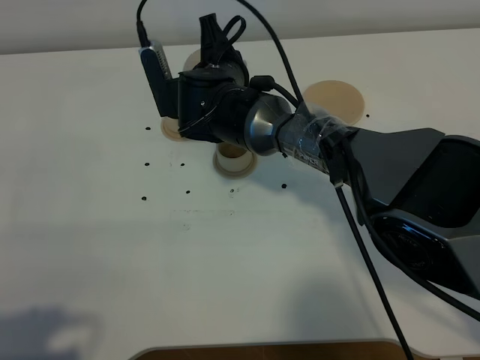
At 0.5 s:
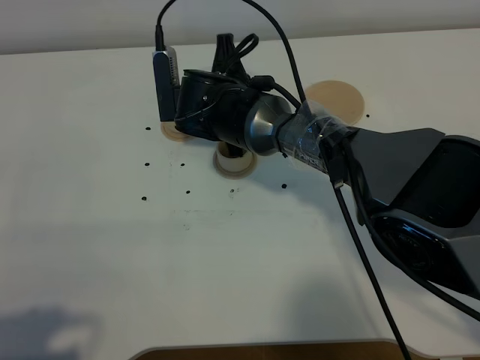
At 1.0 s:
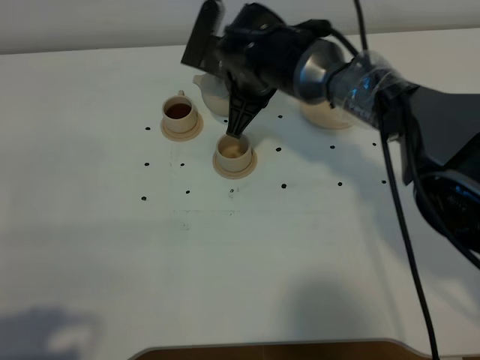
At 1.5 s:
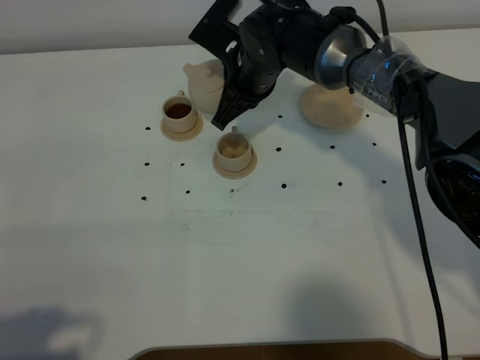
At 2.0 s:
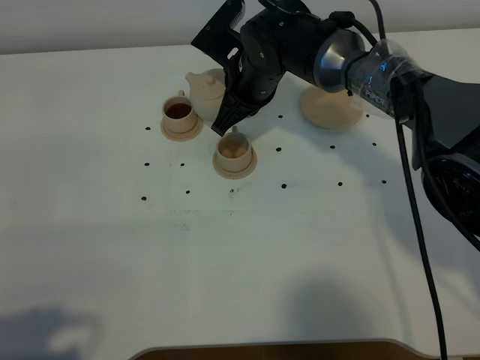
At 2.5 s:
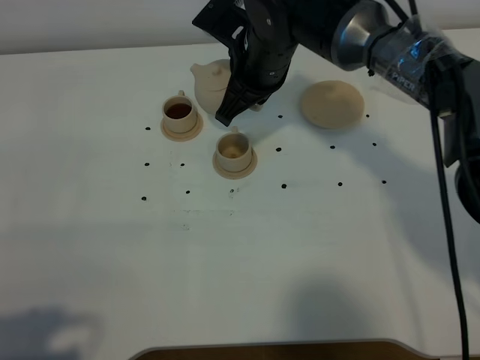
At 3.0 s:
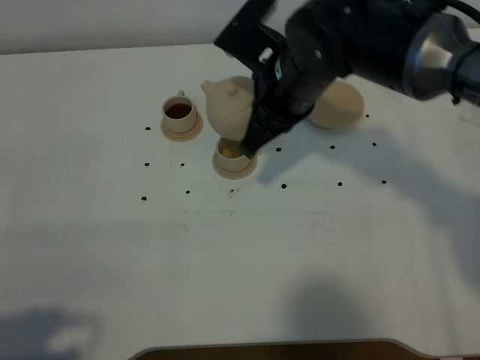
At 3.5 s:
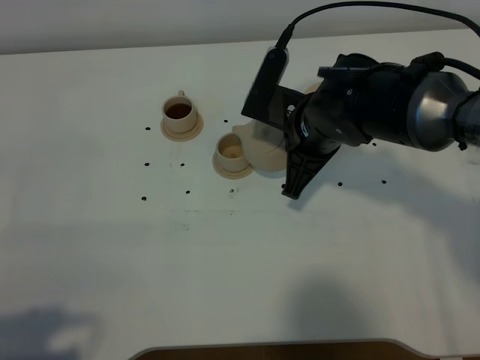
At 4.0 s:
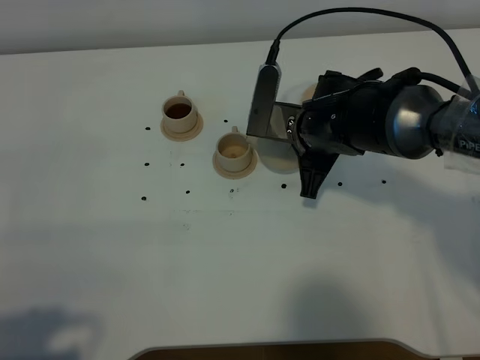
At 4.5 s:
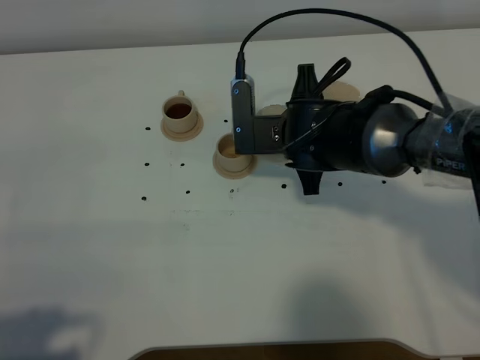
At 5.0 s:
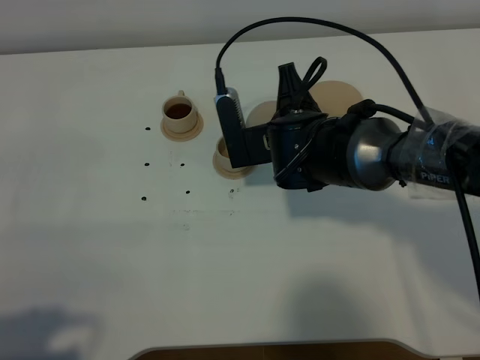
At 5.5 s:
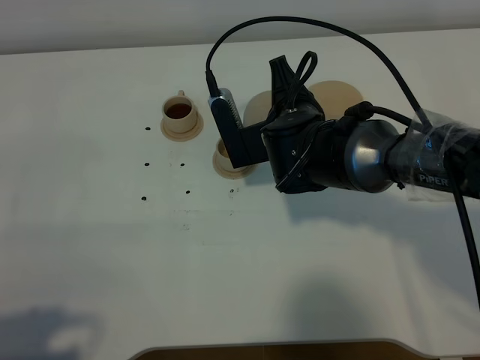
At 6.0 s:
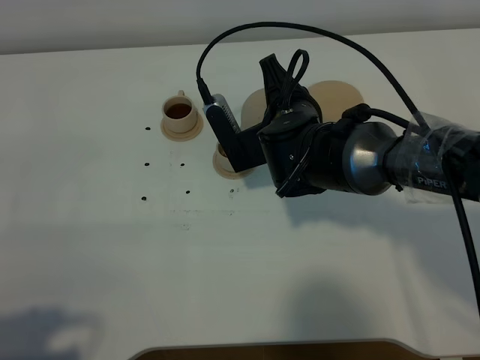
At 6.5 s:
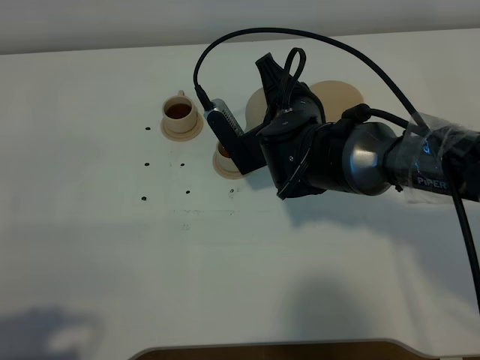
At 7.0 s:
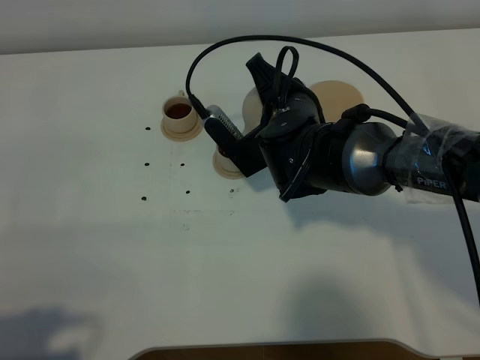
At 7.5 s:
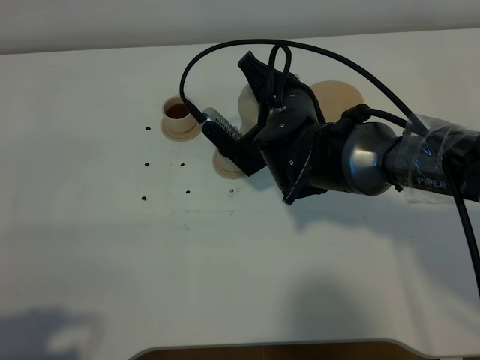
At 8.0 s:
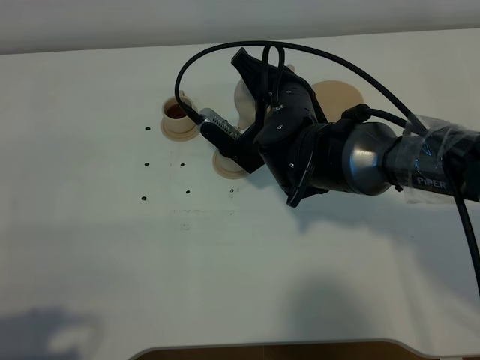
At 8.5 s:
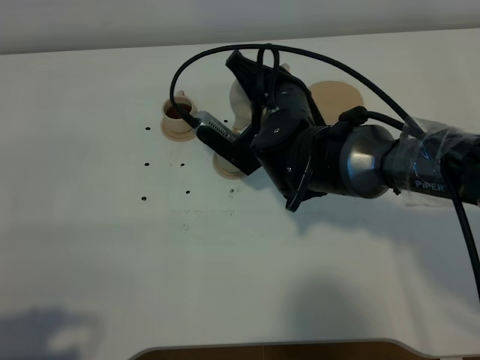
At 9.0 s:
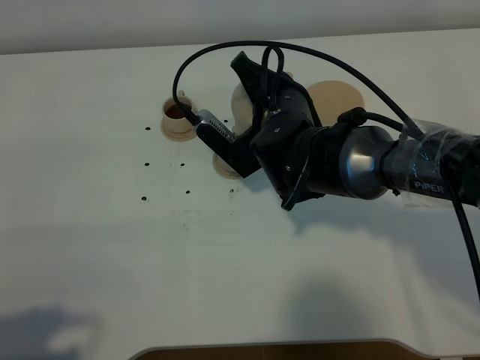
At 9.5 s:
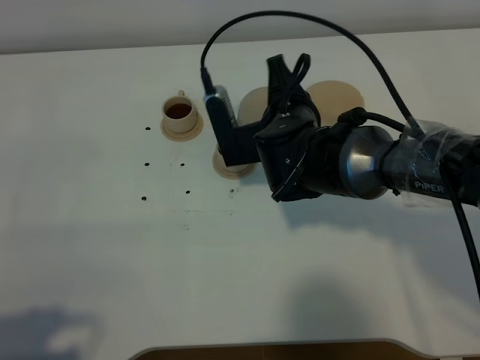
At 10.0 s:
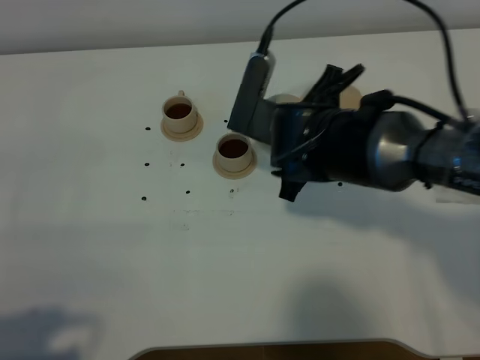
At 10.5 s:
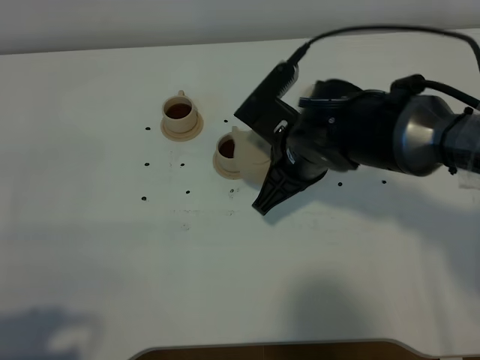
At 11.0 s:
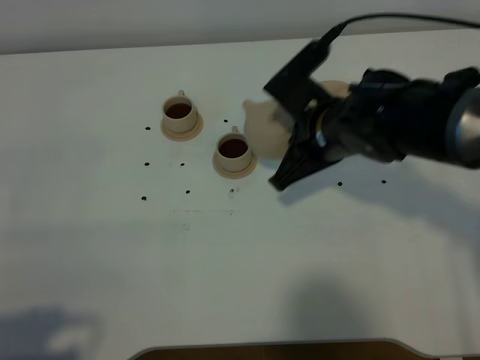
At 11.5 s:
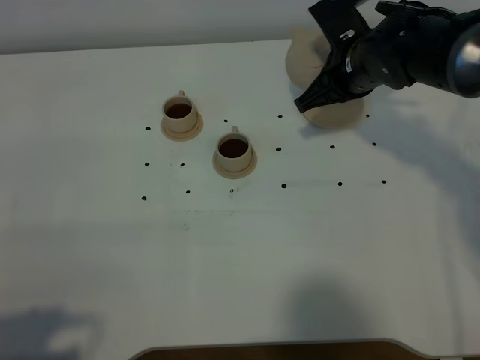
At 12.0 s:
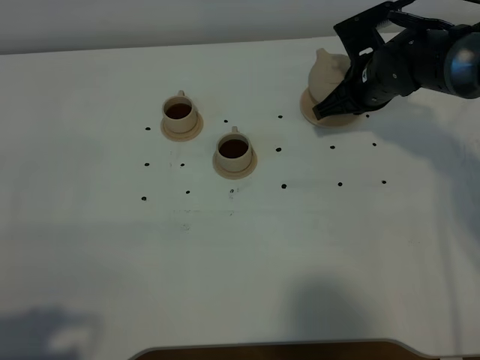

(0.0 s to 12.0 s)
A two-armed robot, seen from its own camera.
Task of the whole recording: grasp the brown teapot and pour the tea into the two brown teacups one by one, put the brown teapot back in its original place.
Step, 1.5 s - 9.5 s: Pour tea into the teacup with the right gripper.
0.0 s - 2.0 s: The right gripper shifts about 5 cm to the right.
2.0 s - 4.0 s: The right gripper travels backward and to the right by about 10 cm.
10.0 s - 12.0 s: The right gripper heads to the right and forward, covering approximately 15 cm.

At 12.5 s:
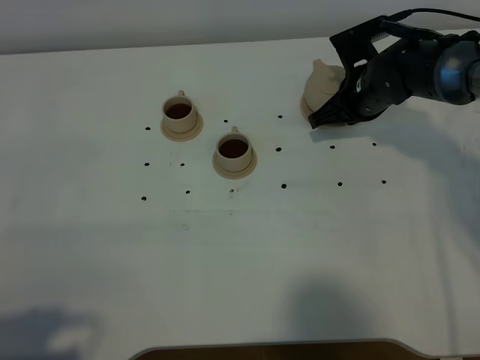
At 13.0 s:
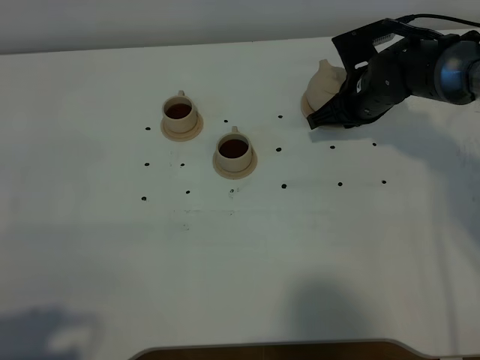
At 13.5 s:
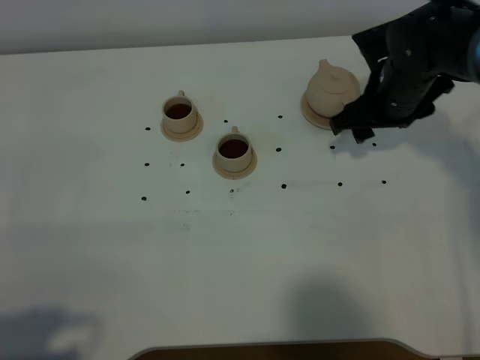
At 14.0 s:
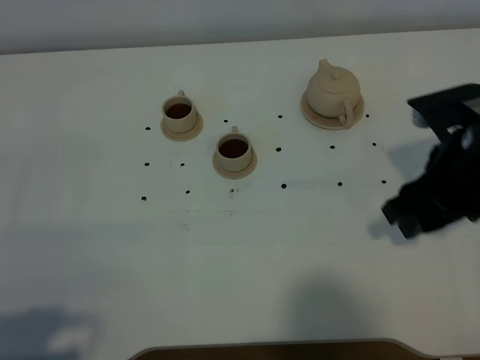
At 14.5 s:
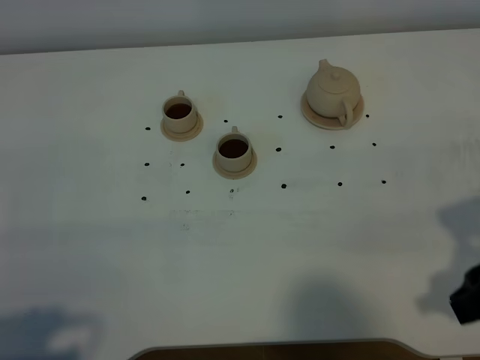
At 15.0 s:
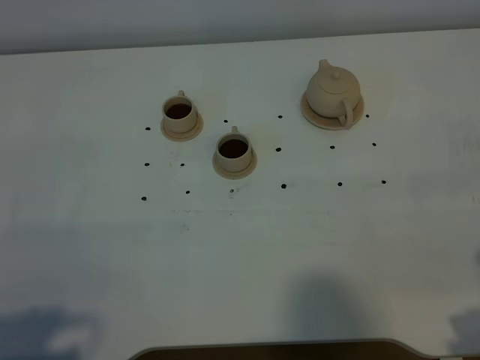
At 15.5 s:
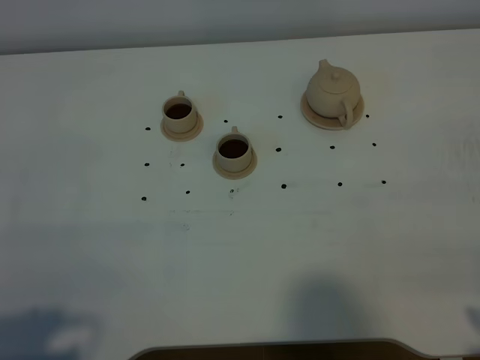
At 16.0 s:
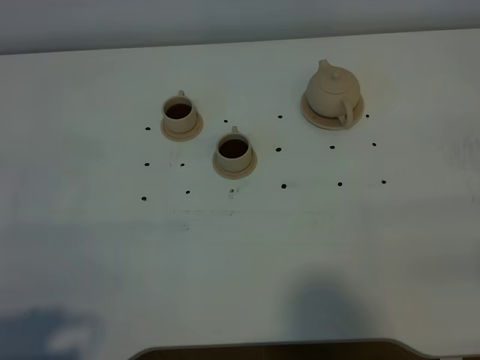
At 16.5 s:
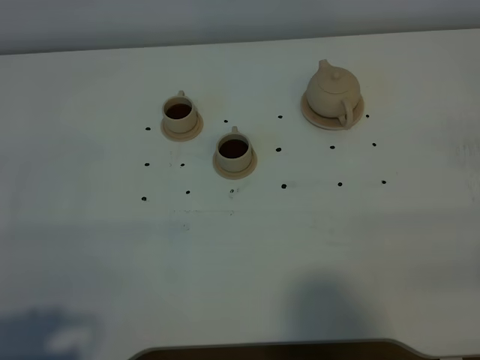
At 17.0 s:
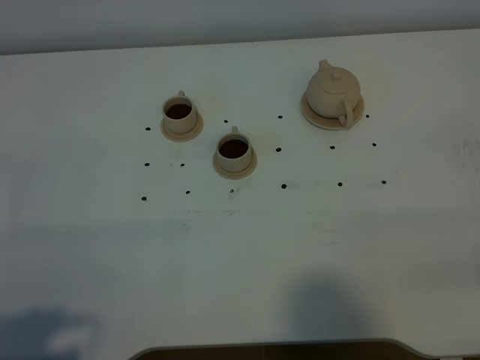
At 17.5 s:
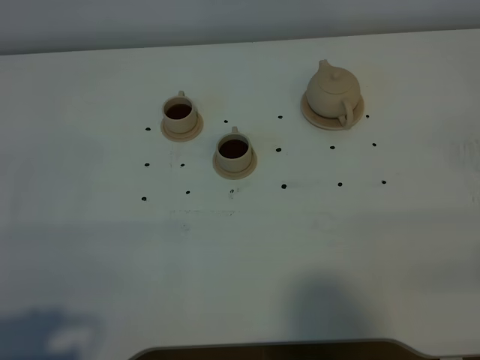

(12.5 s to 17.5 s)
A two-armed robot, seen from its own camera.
Task of the whole recording: grasp the brown teapot and pour the tea into the two brown teacups one by one, put the brown teapot back in its original place.
12.5 s - 15.0 s: The right gripper travels backward by about 35 cm, and opens.

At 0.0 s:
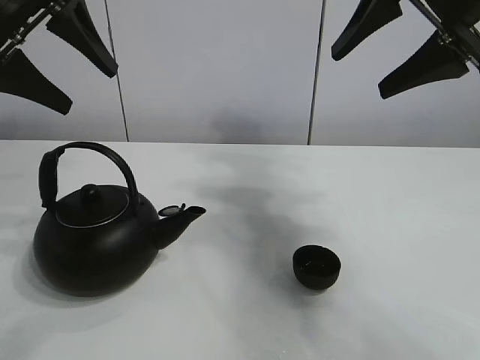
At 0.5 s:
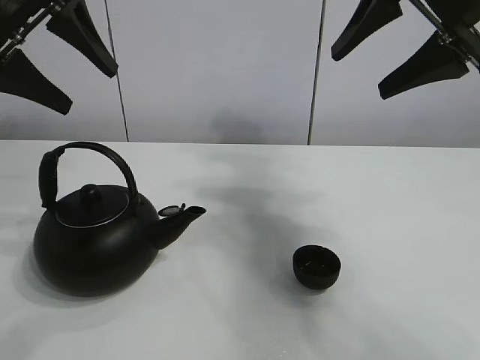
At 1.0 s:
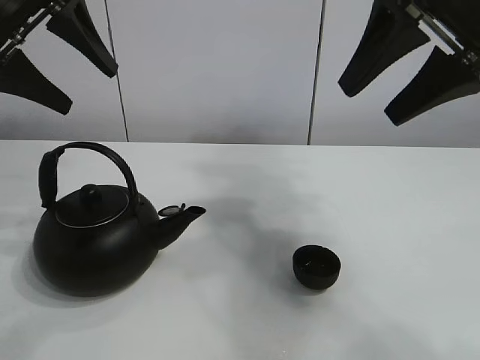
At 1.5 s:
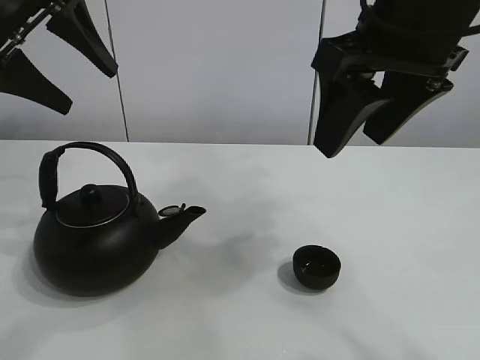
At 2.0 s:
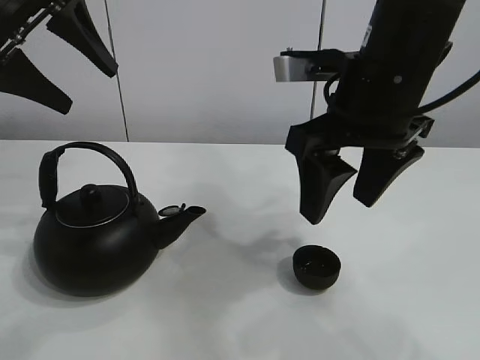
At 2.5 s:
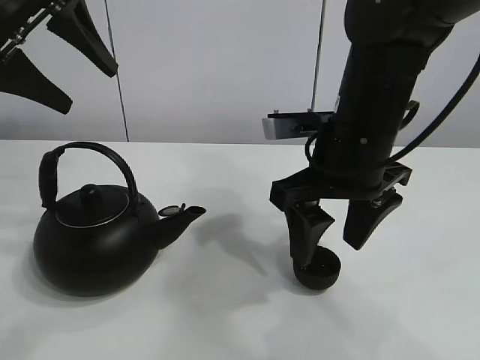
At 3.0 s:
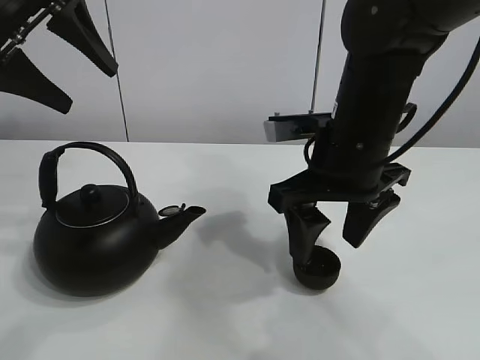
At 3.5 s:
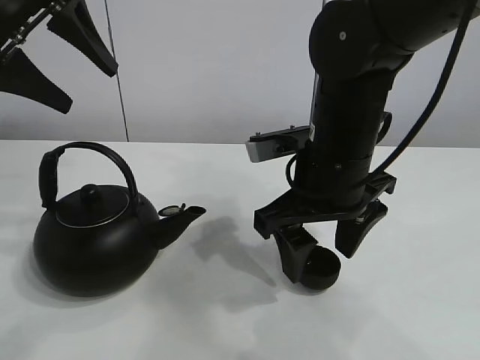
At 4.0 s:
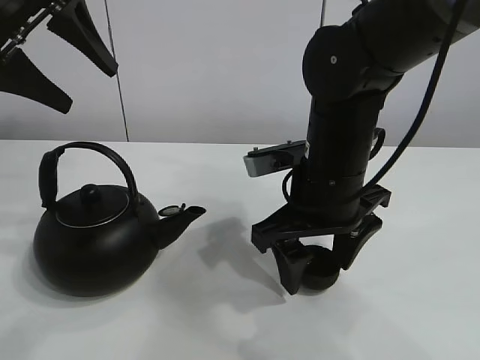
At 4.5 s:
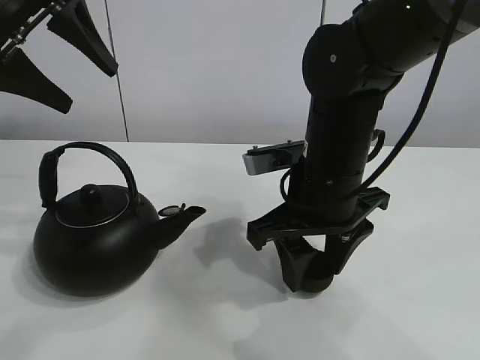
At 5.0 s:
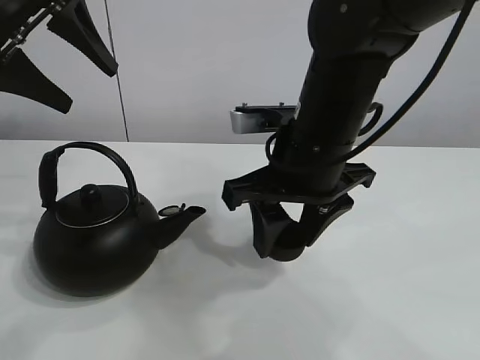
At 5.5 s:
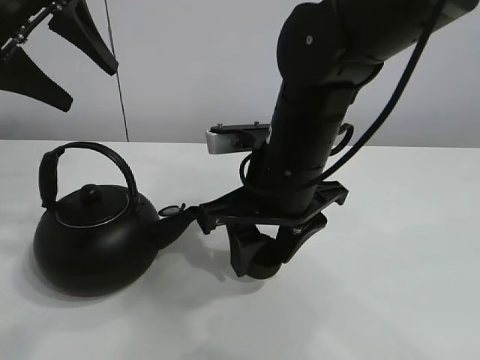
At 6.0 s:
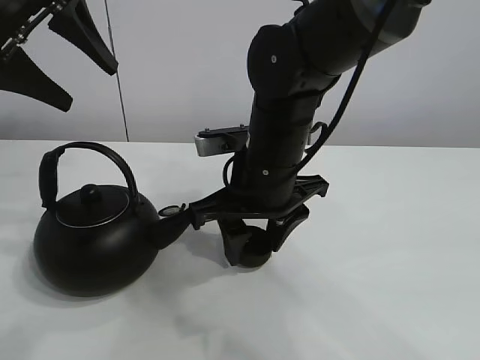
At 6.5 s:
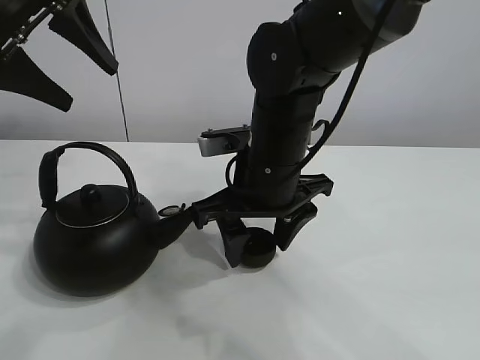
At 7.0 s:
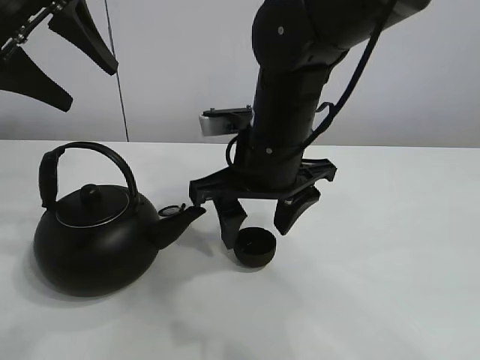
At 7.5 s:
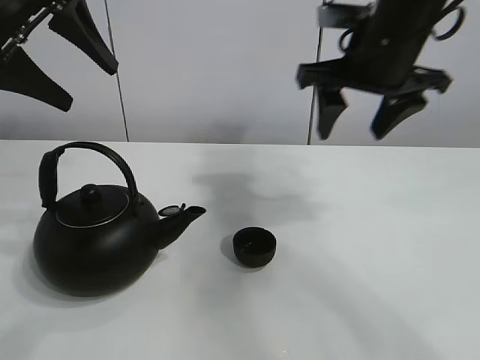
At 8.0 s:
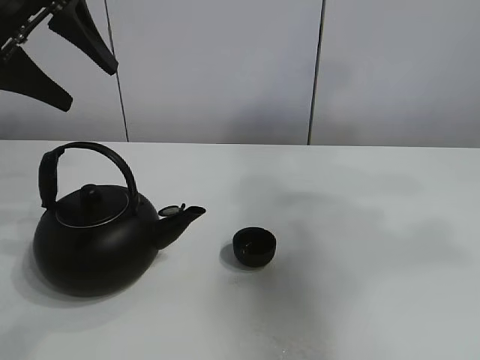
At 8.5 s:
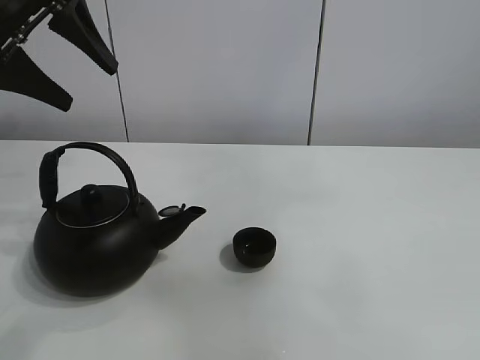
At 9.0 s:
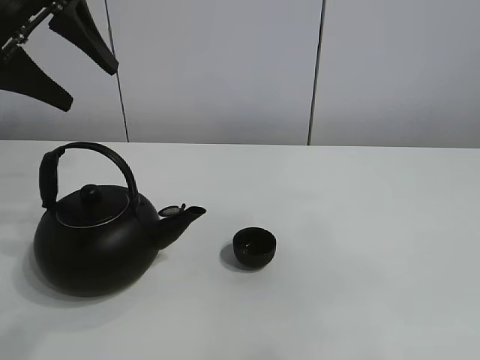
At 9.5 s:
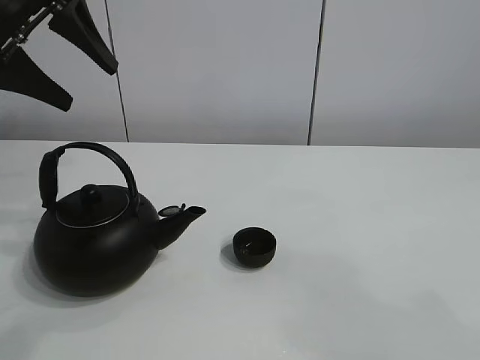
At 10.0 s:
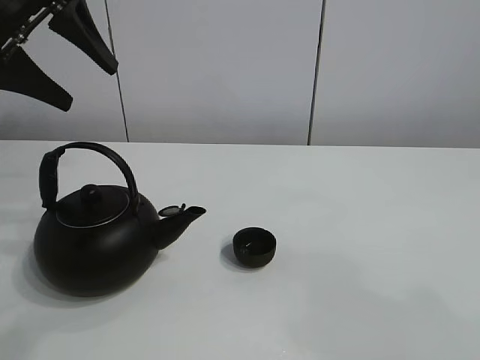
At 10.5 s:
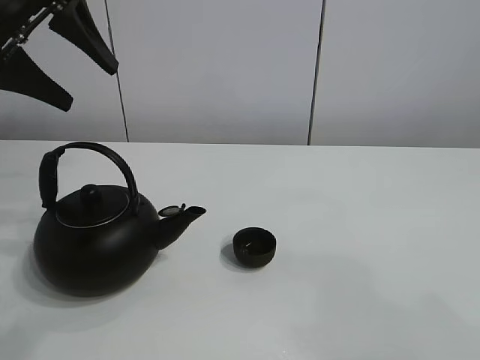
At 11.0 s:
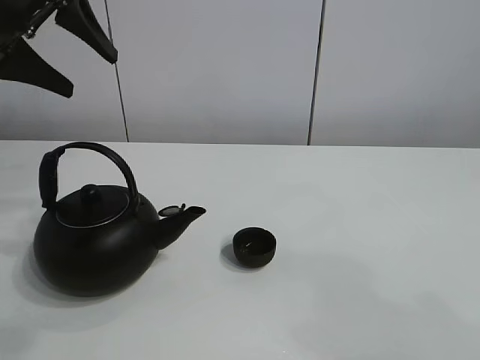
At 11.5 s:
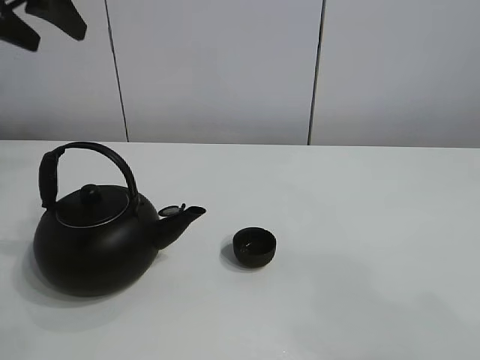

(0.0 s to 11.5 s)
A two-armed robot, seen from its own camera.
Task of the whole recording: pour tea into the teacup.
Step, 0.0 s - 4.0 s: Pick up the teacup with the right gripper.
Step, 4.5 s - 6.0 s: Place the teacup in the center of view with the right gripper.
2.0 s - 4.0 s: The right gripper is displaced downward by about 10 cm.
4.0 s - 6.0 s: The right gripper moves to the left, roughly 5 cm, and closes its fingers.
6.0 s - 7.5 s: The right gripper goes some 15 cm to the right and upward, and opens up.
7.5 s - 9.5 s: The right gripper goes approximately 40 cm backward.
